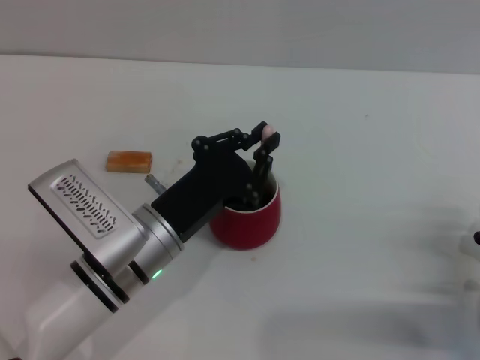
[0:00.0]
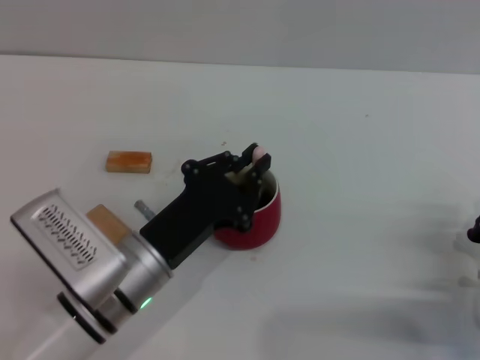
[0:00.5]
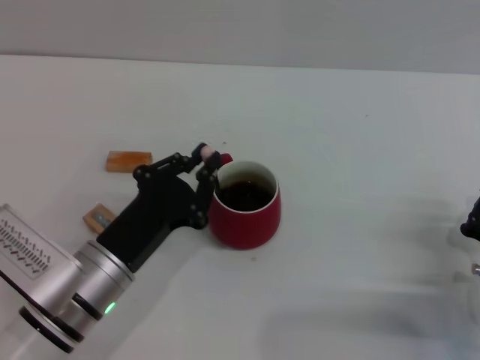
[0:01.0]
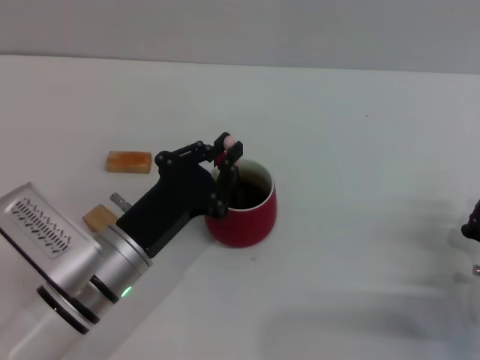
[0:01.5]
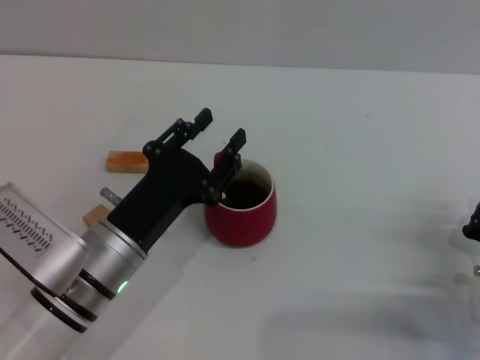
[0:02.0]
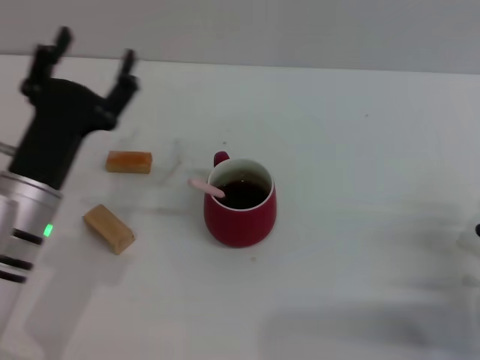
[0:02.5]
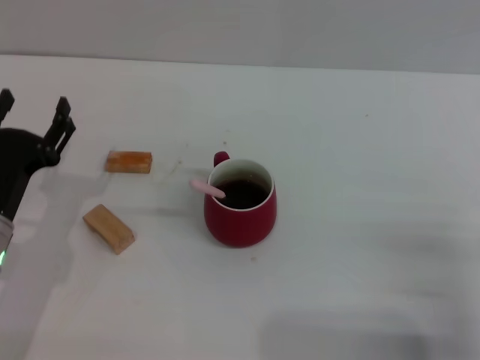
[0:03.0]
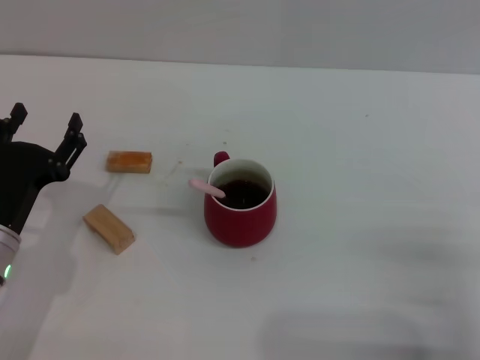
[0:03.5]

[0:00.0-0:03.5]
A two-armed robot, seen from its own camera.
Task of the whole recording: Move the red cup to the center, lift the pink spoon, stir it three times in the cup, and put the spoon into the cup.
Step, 0:00.0 to 0:02.0: Stir the coffee in the cup with the left gripper.
0:00.0 to 0:02.0: The grippers move only a little.
0:02.0 to 0:03.5: The left gripper travels to the left by roughly 10 cm, and opens its fingers.
